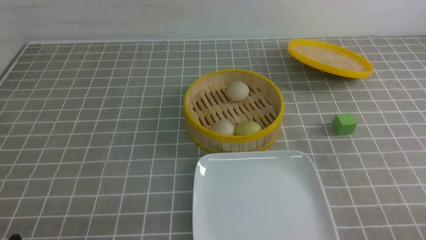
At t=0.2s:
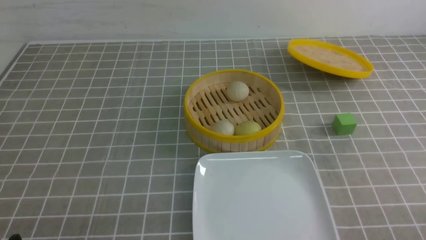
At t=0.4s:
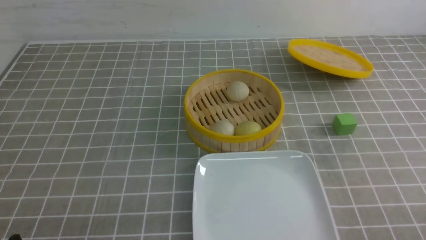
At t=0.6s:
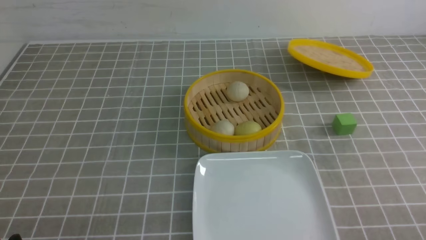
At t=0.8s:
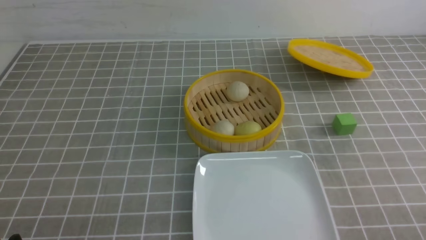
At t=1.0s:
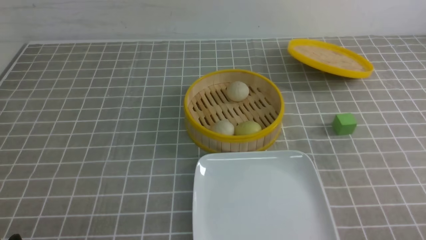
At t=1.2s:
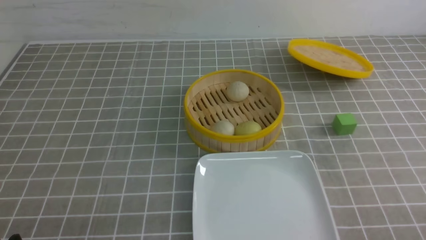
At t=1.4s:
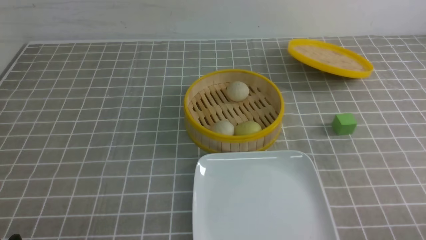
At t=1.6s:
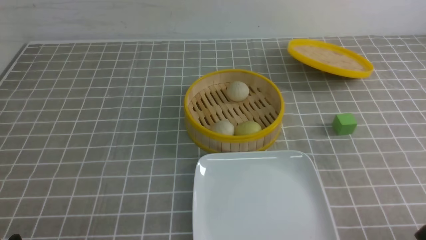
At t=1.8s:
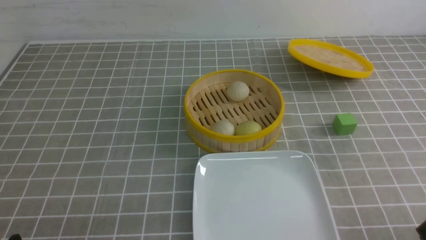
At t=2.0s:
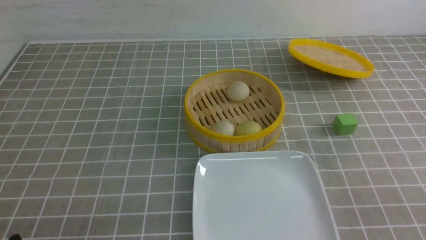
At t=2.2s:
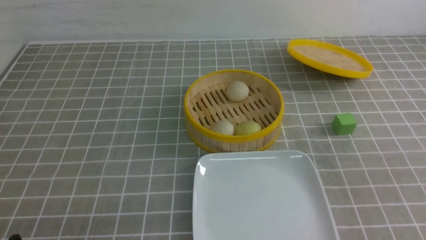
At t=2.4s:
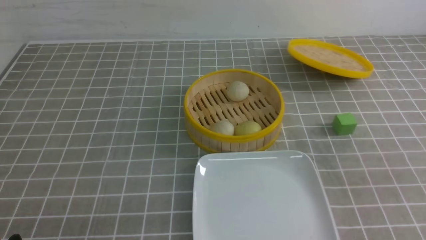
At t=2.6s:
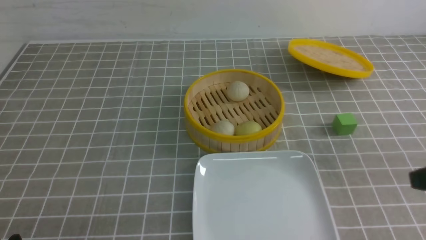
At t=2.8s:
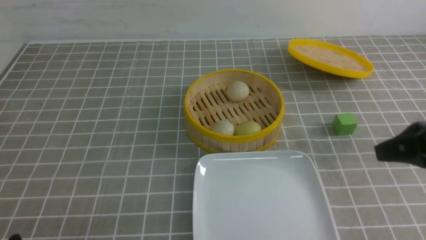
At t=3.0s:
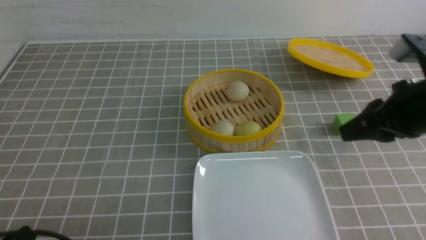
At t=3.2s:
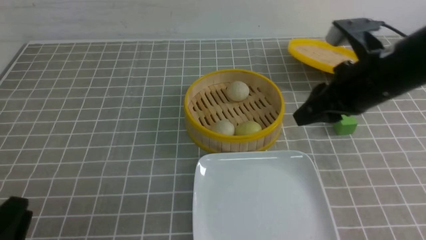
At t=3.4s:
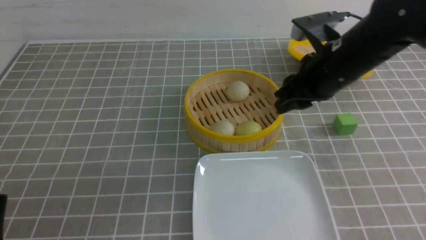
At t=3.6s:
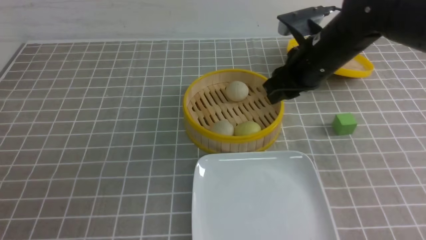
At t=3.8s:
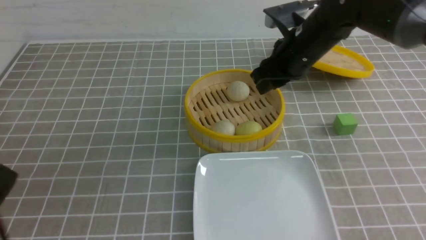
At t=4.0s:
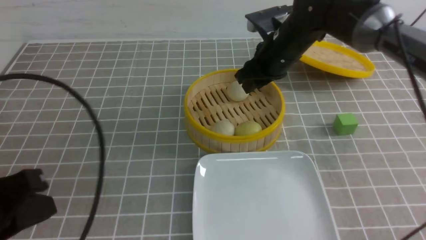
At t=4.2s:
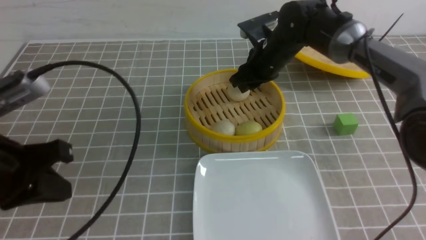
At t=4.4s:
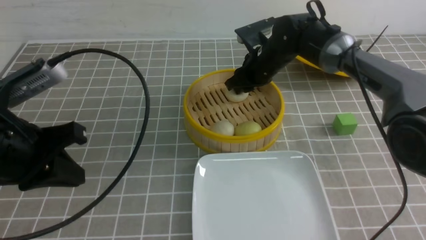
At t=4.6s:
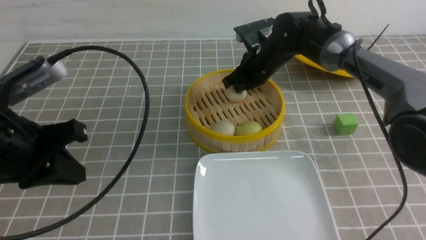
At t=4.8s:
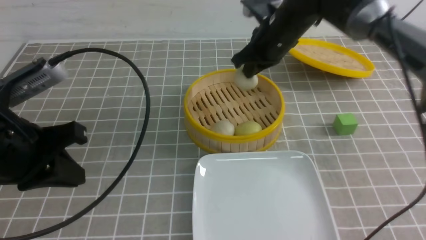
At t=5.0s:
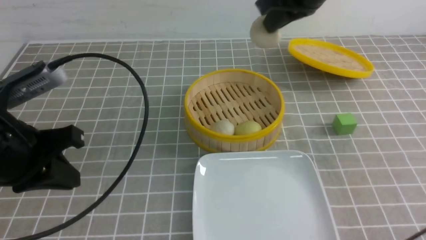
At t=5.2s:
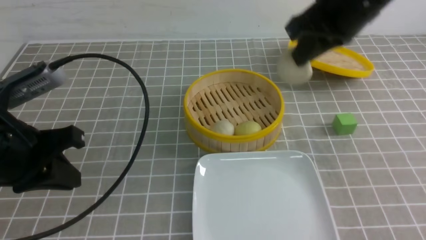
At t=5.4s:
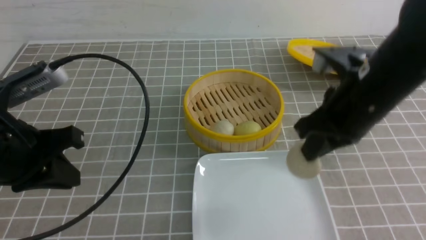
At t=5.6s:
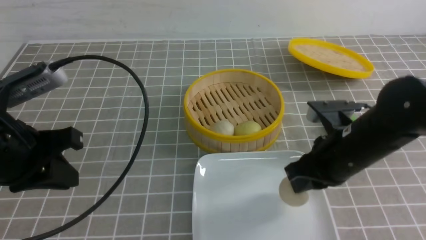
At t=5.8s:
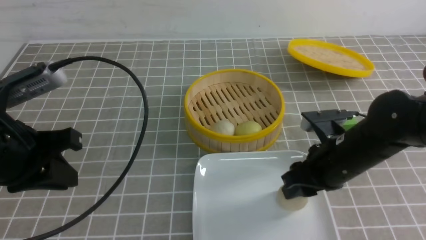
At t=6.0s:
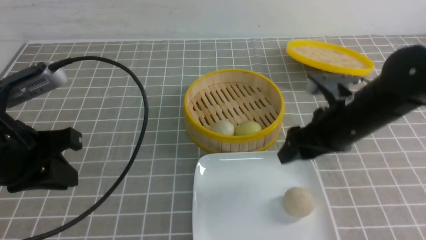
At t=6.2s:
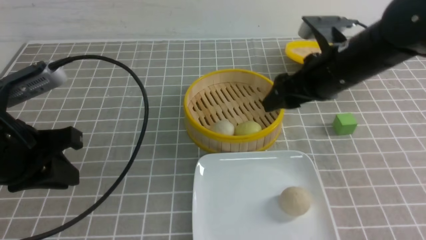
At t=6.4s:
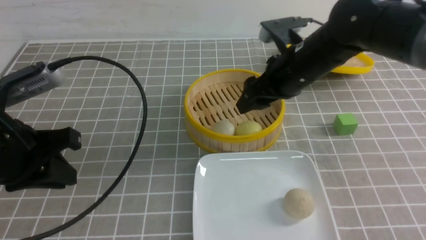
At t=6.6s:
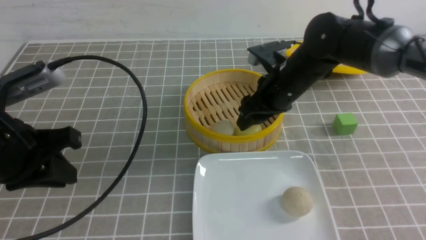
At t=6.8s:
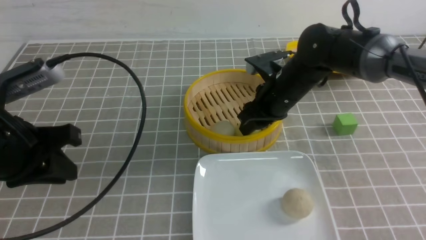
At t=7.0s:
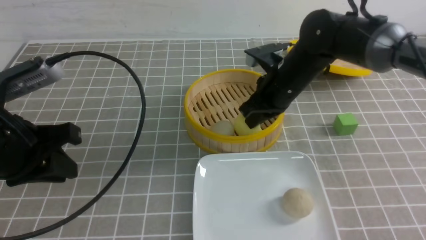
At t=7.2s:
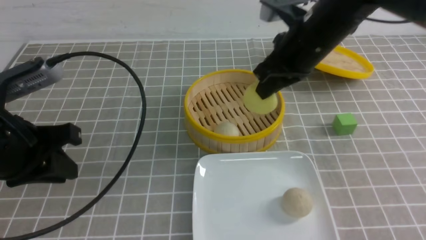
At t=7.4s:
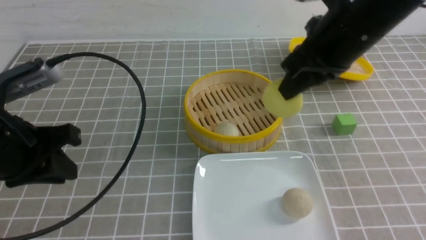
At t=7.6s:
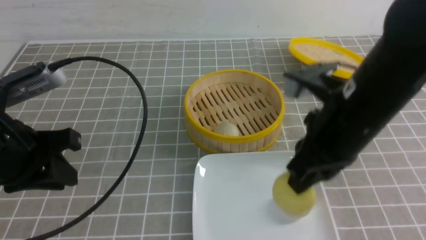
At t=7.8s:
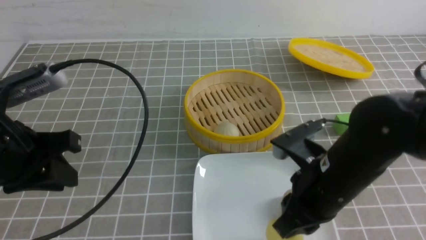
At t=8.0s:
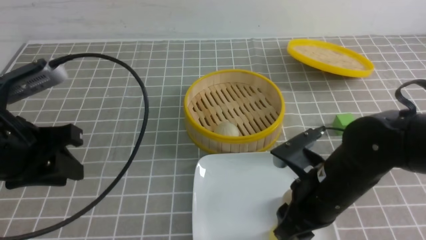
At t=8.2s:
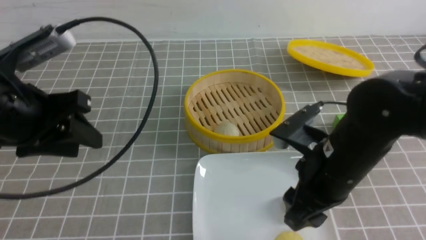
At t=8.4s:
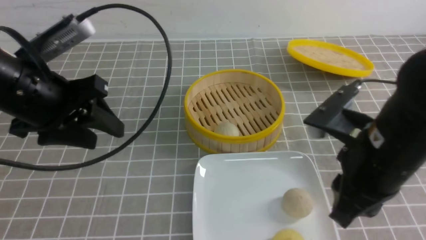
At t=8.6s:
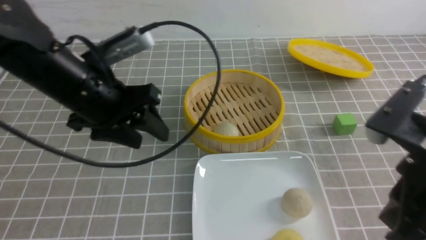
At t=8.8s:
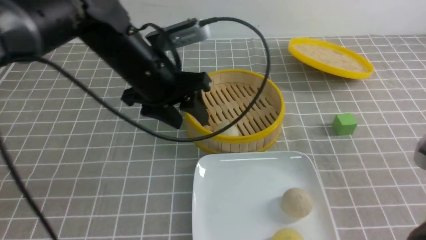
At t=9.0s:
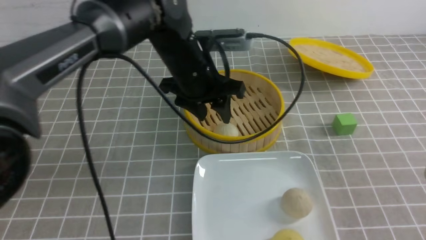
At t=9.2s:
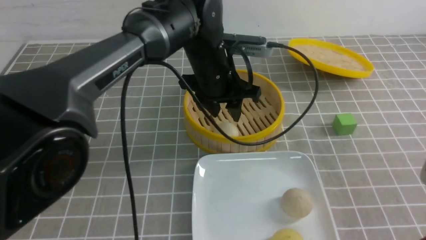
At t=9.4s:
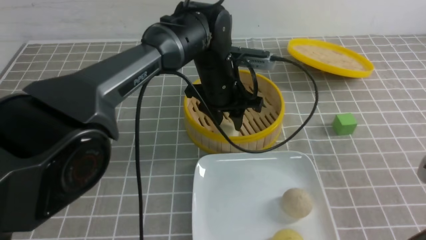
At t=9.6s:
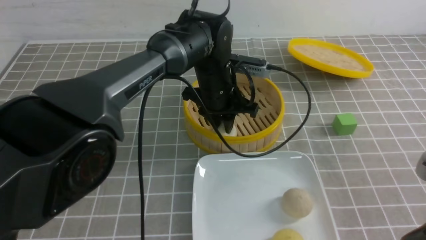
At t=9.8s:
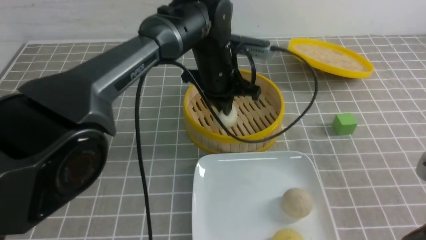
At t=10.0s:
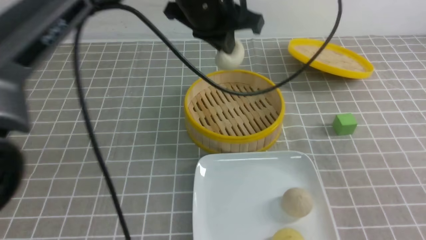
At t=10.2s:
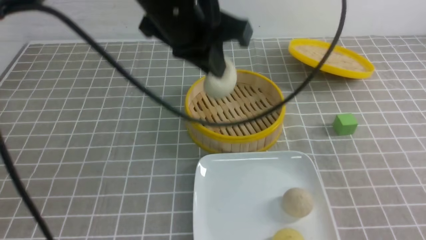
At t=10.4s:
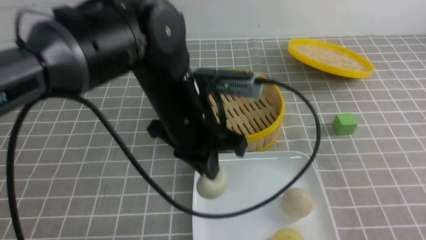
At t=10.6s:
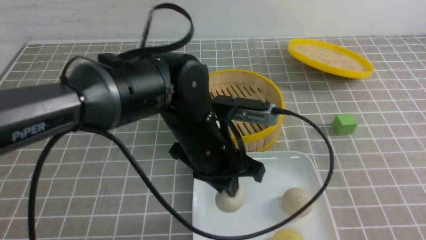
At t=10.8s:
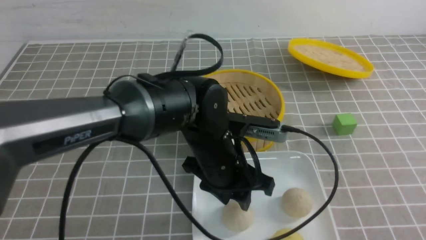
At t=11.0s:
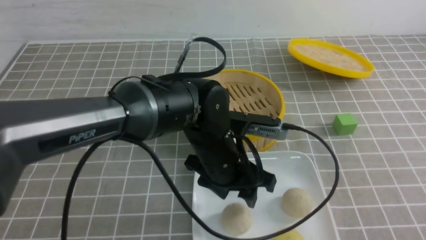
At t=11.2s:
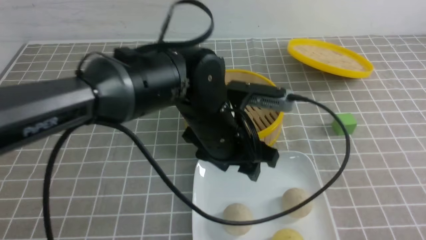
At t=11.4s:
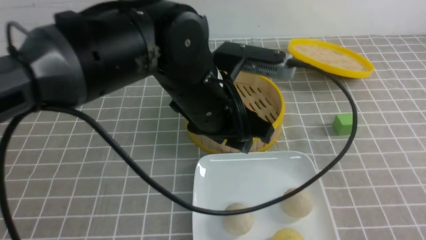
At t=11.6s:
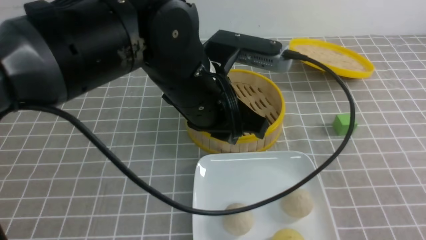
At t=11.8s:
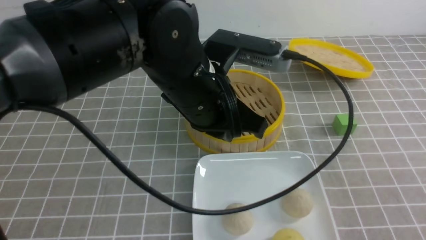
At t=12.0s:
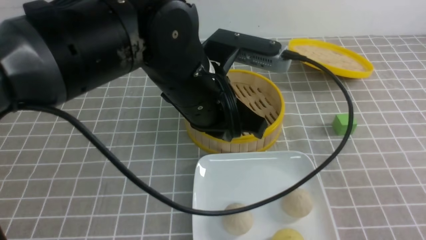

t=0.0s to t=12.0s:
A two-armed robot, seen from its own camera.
Step, t=0.0s to t=4.6s: use the right arm to grab the steamed stuffed bun that is closest to it.
Step, t=4.8s to t=6.0s: use the right arm to put the steamed stuffed bun into the plate.
Step, t=6.2s to t=7.0s: use the right arm to grab the steamed stuffed bun that is closest to it.
Step, t=7.2s to t=8.2s: use the right arm to put the steamed stuffed bun into the plate.
Step, t=8.4s to t=9.6s: use the left arm to grab the steamed stuffed bun that is closest to it.
Step, t=10.0s to t=11.0s: use the left arm to put the steamed stuffed bun into the plate.
t=1.6s to t=3.0s: The right gripper travels forward and upward by about 25 cm.
t=3.0s to t=4.4s: The left gripper goes about 20 cm forward and upward, and closes. Meanwhile the right gripper heads forward, to the left and downward, covering some 30 cm.
t=4.4s to t=6.0s: The right gripper shifts about 20 cm backward, and opens its fingers.
t=6.0s to t=7.6s: The right gripper shifts roughly 5 cm backward, and closes.
t=7.6s to t=9.0s: The left gripper heads to the right and forward, covering roughly 25 cm, and opens its fingers; the right gripper shifts roughly 20 cm backward and to the right, and opens and closes again.
t=9.0s to t=10.4s: The left gripper swings up and down, approximately 15 cm each way, with 2 reversals, and closes its fingers. Meanwhile the right gripper goes some 10 cm backward and to the right.
t=10.4s to t=12.0s: The left gripper reaches about 10 cm downward, then returns, and opens, then closes once more. The right gripper travels downward by roughly 5 cm.

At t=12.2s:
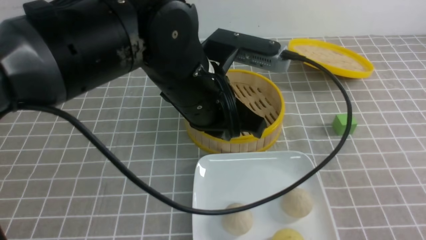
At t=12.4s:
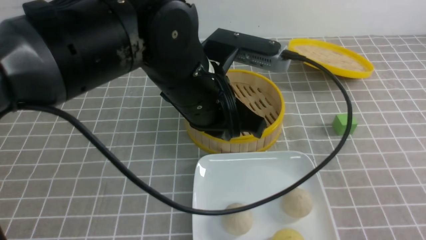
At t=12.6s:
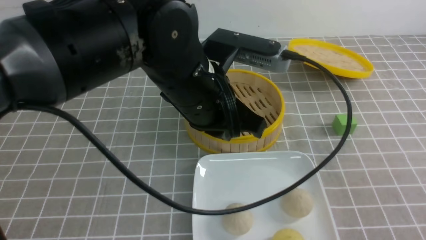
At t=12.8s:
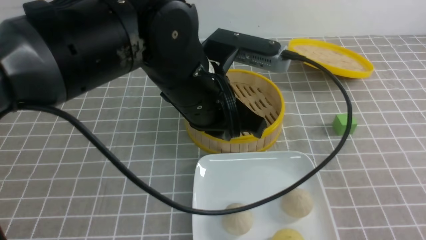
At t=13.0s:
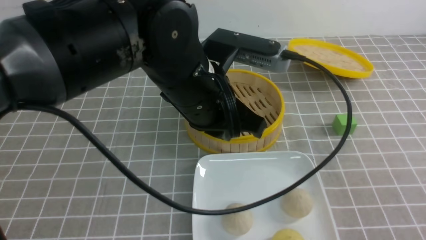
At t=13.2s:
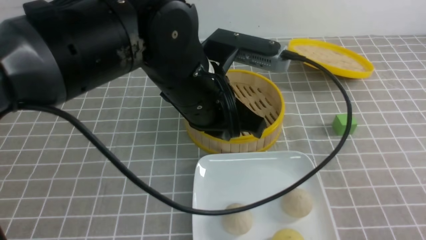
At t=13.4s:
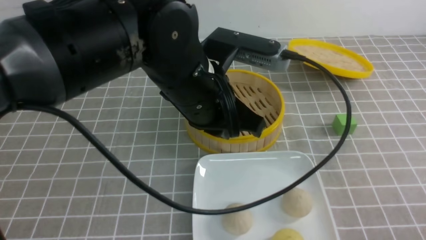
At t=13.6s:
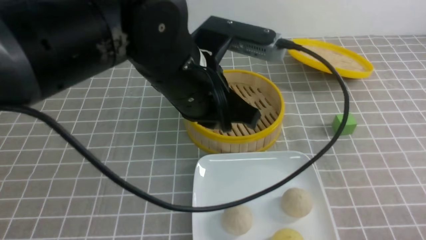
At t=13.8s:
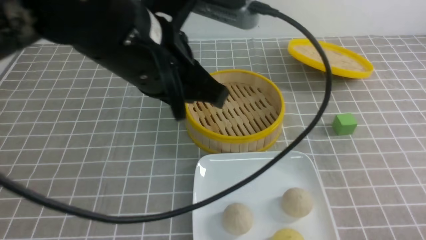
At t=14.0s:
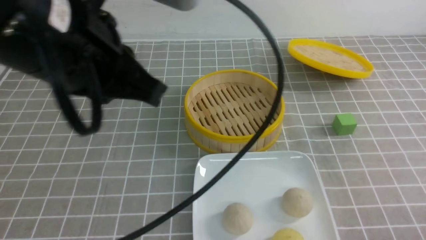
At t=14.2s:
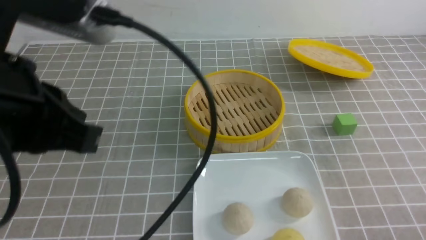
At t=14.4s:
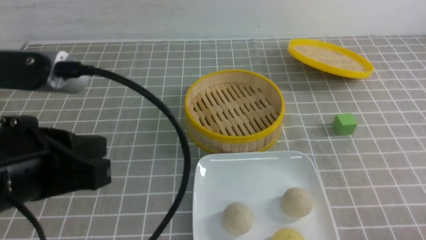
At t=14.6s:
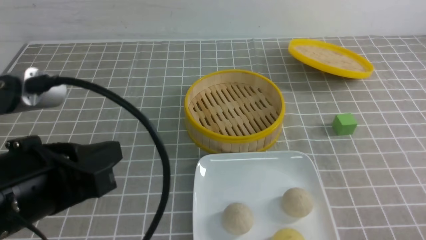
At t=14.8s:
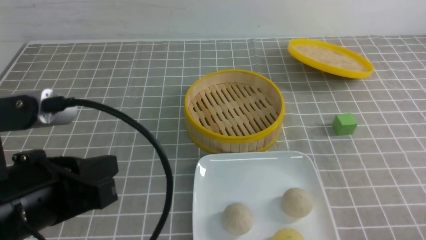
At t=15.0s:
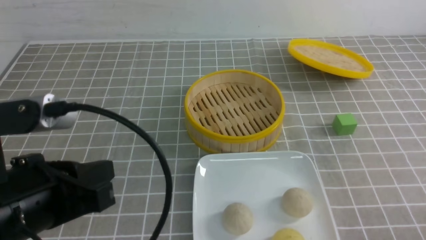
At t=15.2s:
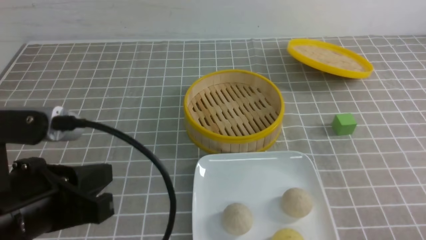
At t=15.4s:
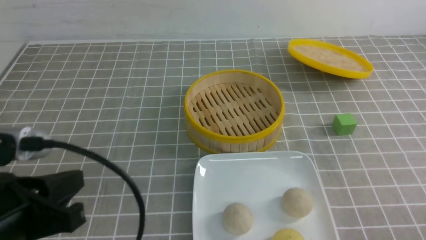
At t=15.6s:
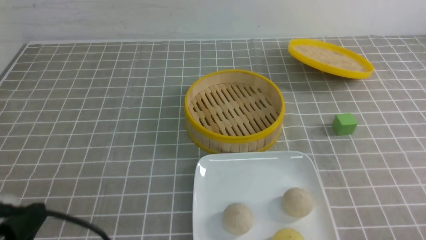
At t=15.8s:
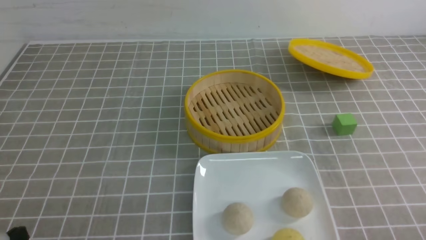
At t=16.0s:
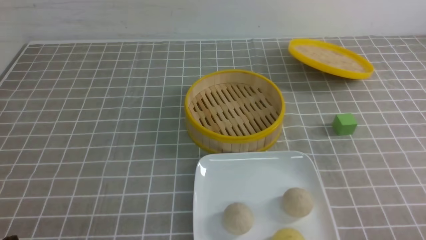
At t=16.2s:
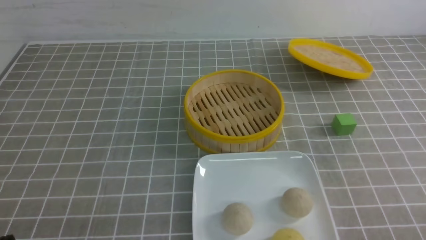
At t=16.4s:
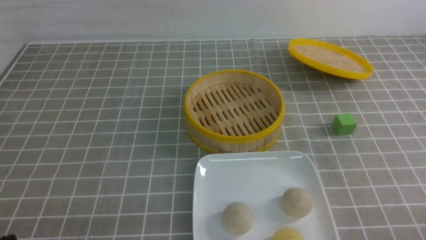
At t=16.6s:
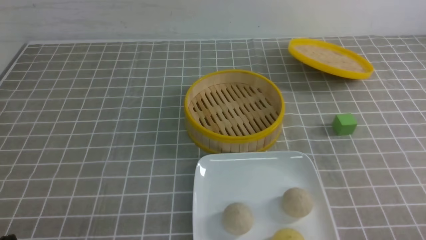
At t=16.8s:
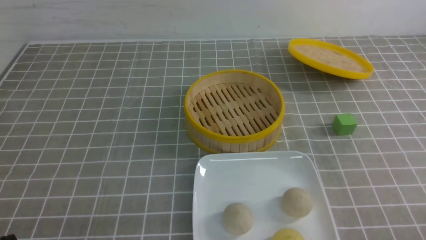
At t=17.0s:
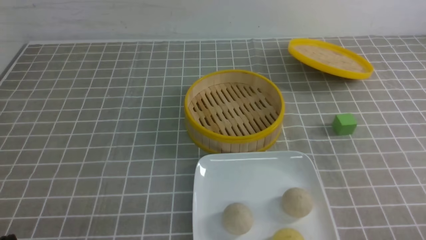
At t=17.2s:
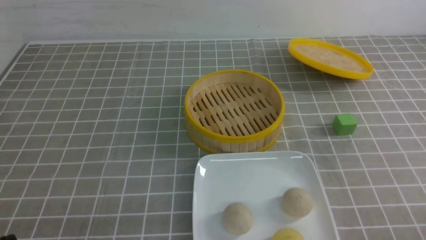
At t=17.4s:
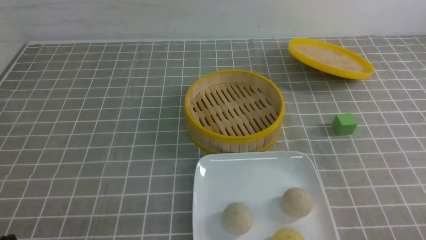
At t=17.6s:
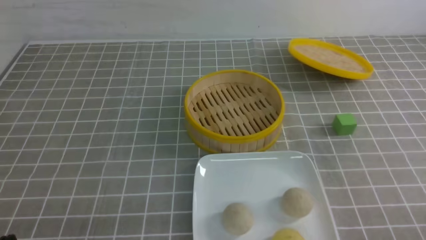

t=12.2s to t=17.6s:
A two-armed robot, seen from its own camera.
t=12.2s to t=13.6s: The right gripper moves downward, about 10 cm.
t=13.6s to t=15.0s: The left gripper heads to the left and backward, covering approximately 20 cm.
t=15.0s to t=16.2s: The left gripper is displaced downward, to the left and backward by roughly 15 cm.
t=16.2s to t=17.6s: Both grippers stay about where they are.
